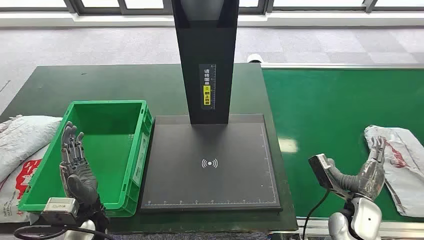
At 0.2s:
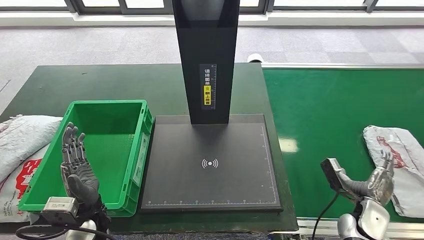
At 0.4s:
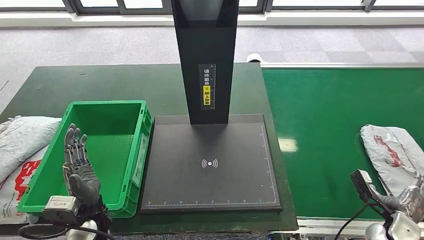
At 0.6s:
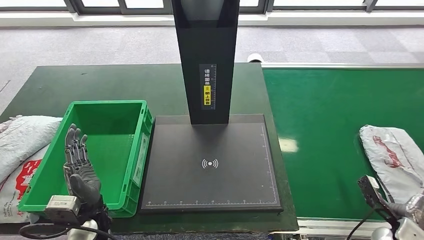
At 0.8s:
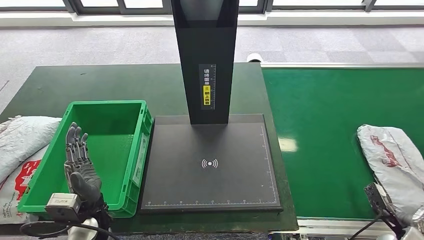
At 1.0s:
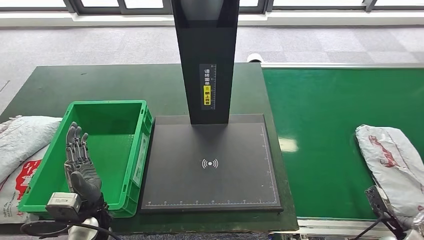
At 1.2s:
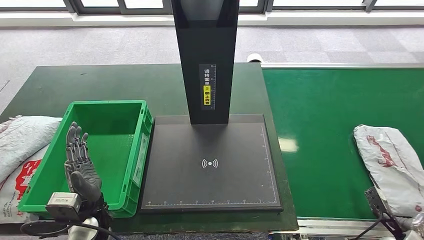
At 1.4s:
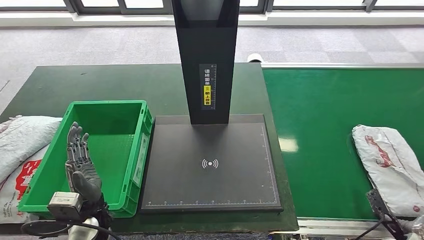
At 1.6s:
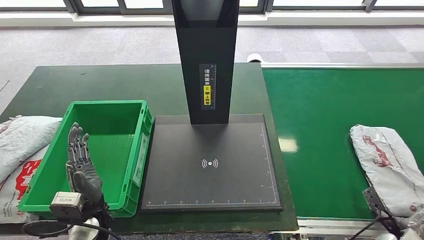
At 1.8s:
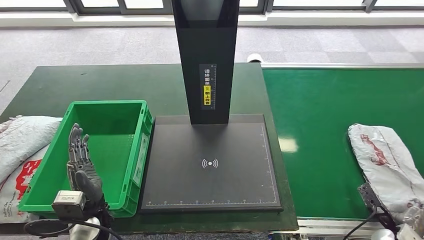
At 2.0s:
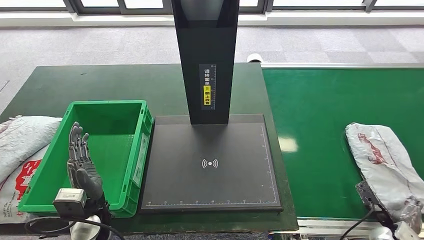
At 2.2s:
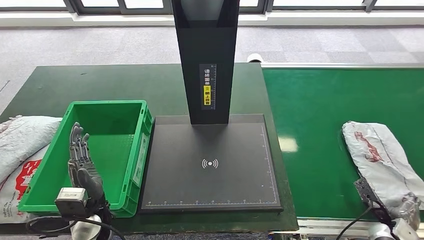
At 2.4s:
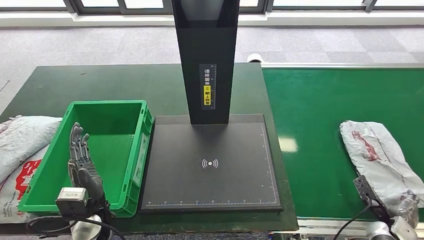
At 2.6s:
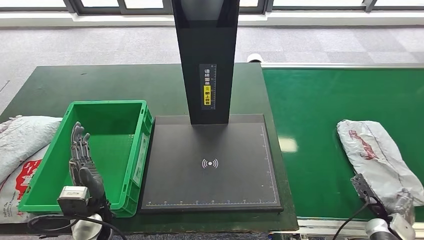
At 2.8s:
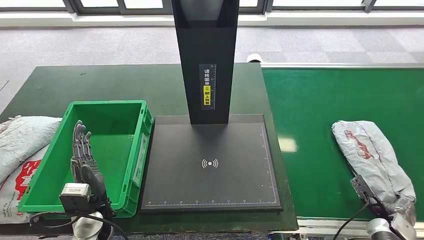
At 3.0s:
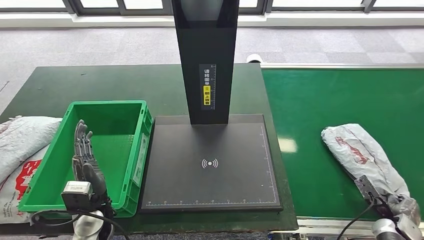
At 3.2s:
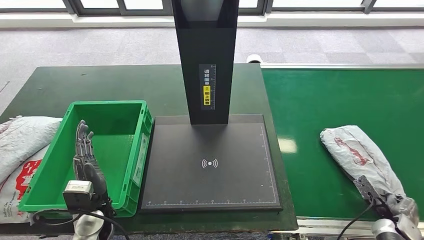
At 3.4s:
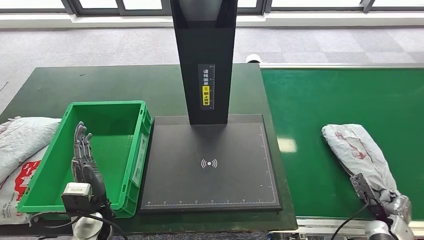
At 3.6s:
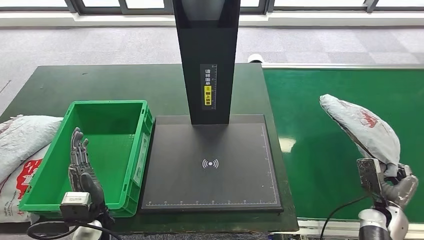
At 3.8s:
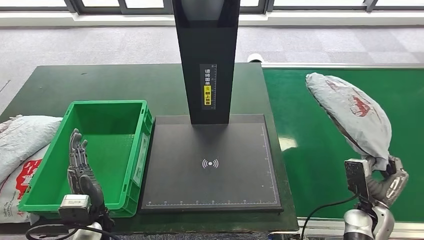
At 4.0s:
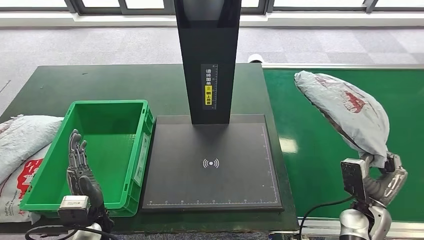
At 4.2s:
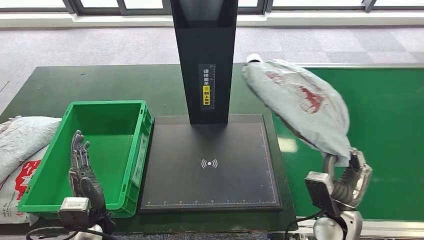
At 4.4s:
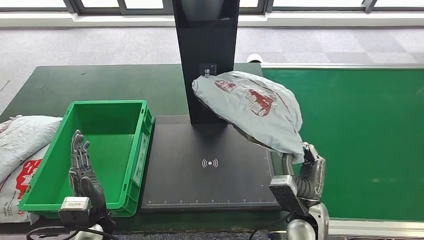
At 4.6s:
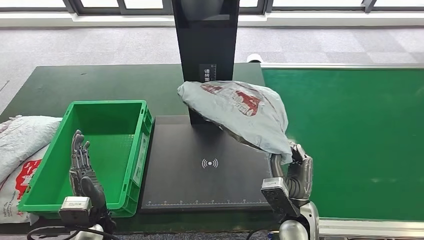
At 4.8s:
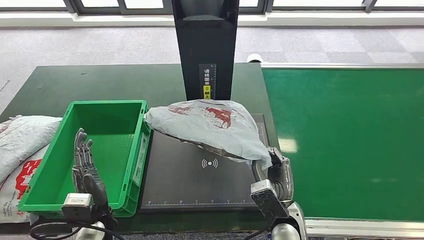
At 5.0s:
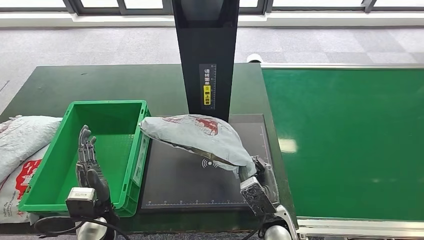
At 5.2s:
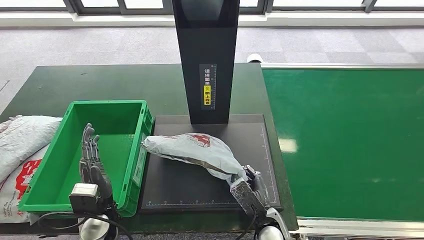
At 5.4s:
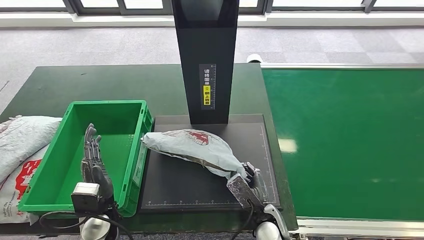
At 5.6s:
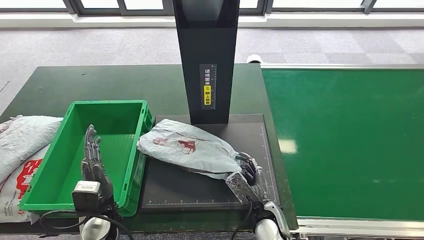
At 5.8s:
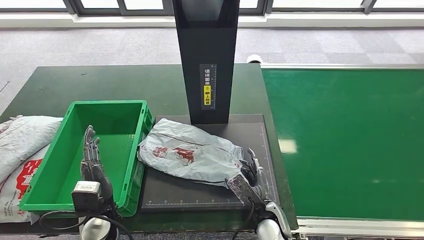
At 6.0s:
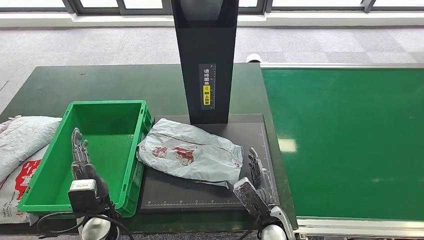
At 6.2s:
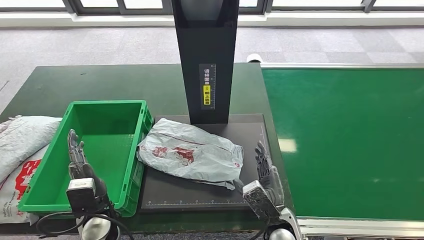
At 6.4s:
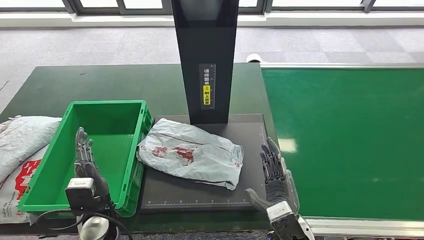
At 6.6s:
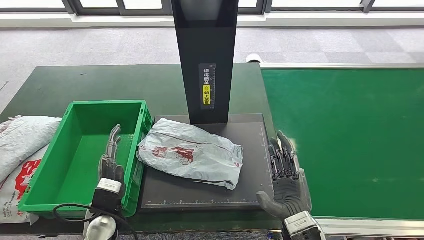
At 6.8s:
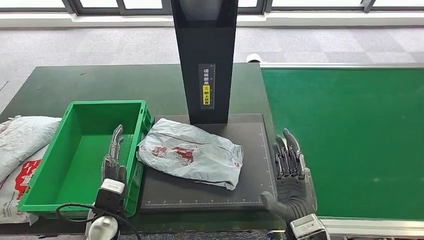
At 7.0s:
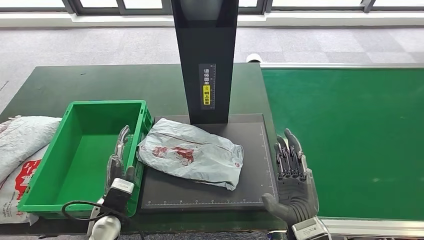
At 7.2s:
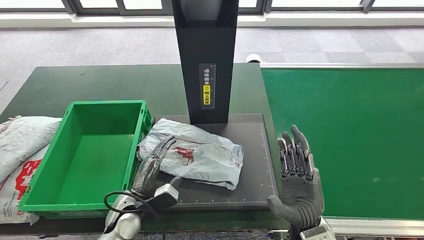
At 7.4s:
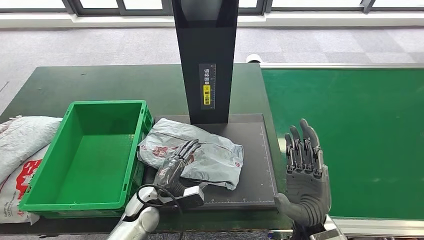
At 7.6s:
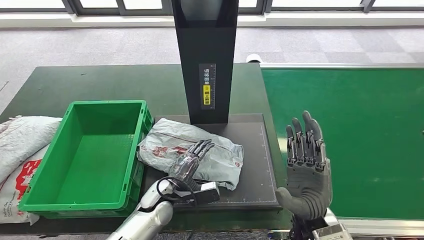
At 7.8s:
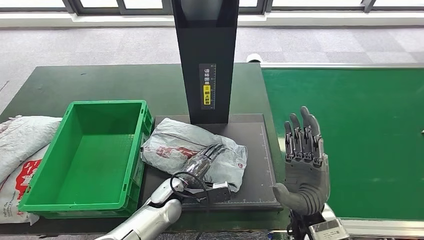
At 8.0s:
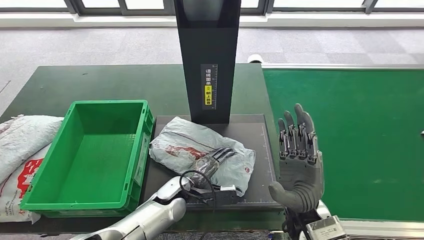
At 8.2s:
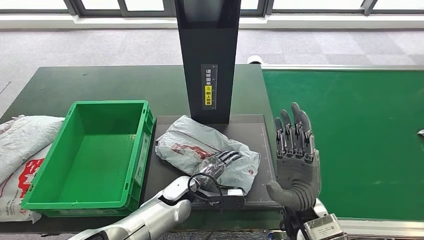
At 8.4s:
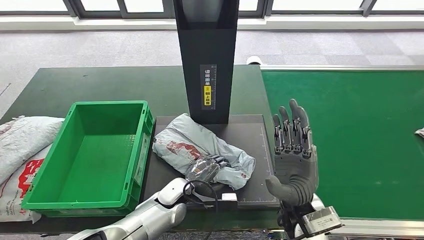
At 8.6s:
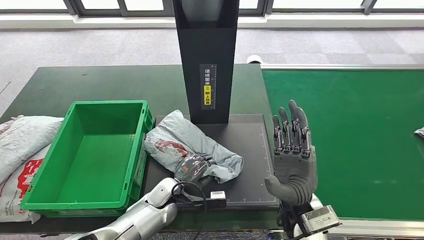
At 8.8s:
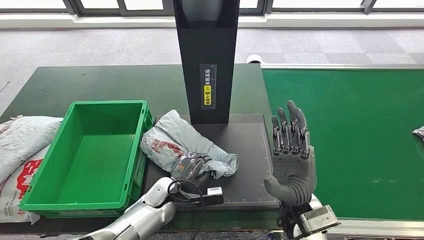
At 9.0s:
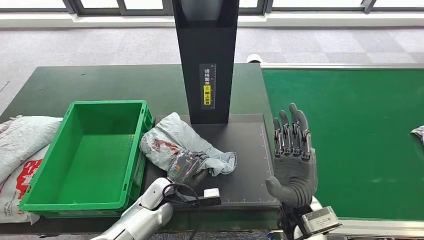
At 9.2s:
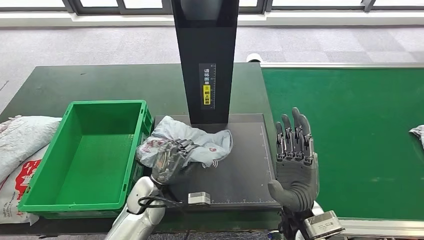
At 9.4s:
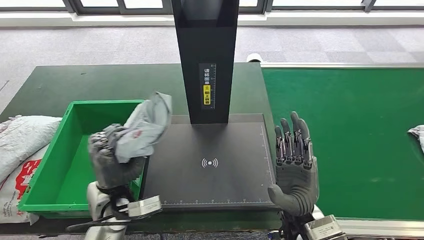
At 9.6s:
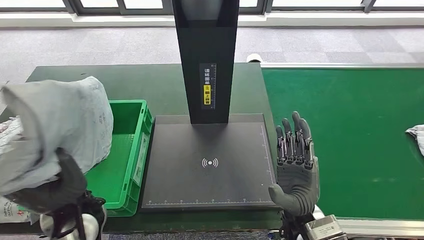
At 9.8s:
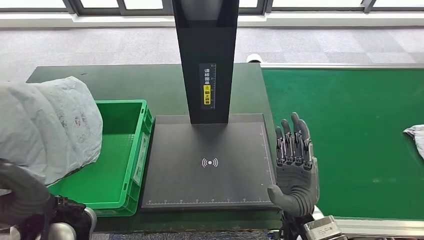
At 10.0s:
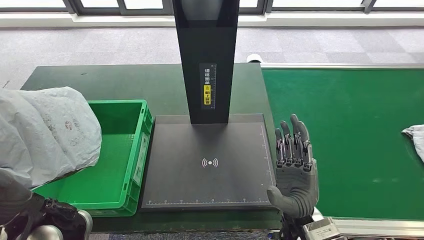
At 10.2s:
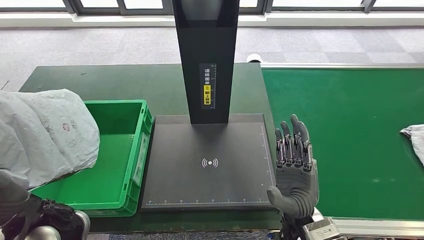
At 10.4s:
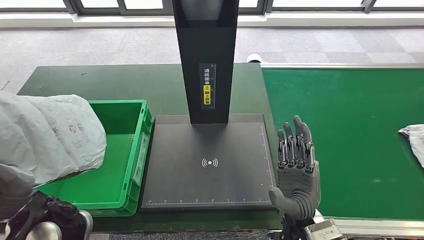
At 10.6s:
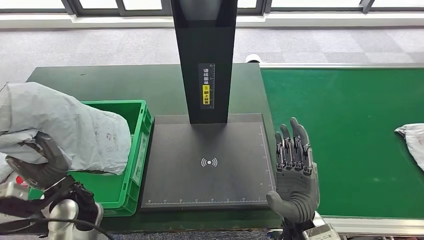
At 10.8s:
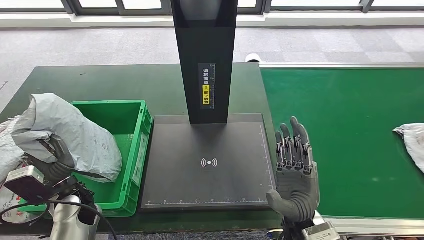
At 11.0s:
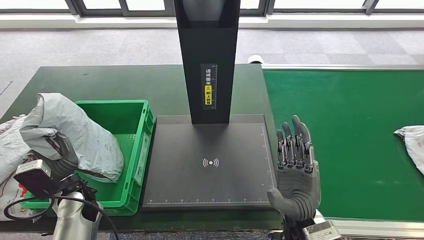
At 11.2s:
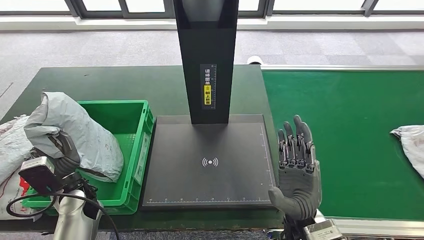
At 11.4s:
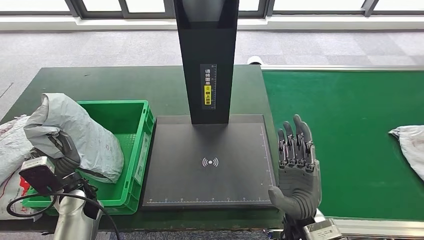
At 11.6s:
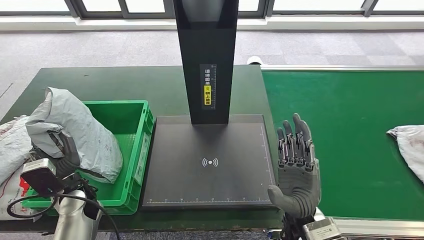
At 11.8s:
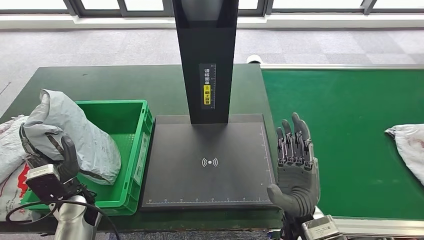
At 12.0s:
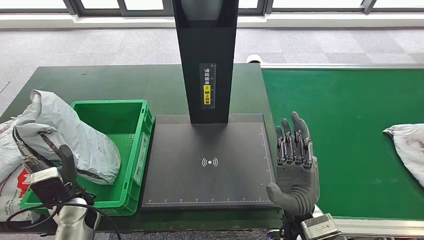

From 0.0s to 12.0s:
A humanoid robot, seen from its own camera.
Step, from 0.0s to 3.4s: Take the parcel off the conveyor belt.
Step, from 3.6s to 6.2s: Place the parcel onto the inbound machine.
Step, from 6.4s to 9.6s: Pick up the parcel from the inbound machine.
From 1.6s to 3.0s: The hands move only a little.
From 3.0s to 4.4s: The right hand shifts about 25 cm to the left and upward.
From 4.4s to 6.0s: The right hand is displaced to the left and downward by some 10 cm.
From 6.0s to 7.6s: The right hand is displaced upward by some 15 cm. Meanwhile the left hand goes roughly 15 cm to the right.
From 10.4s to 12.0s: The left hand travels downward and forward by roughly 15 cm.

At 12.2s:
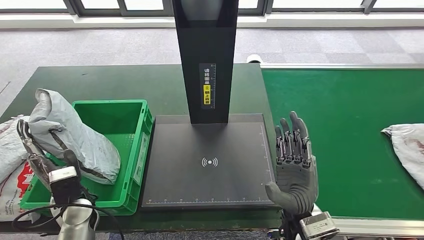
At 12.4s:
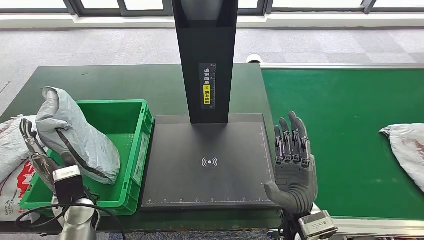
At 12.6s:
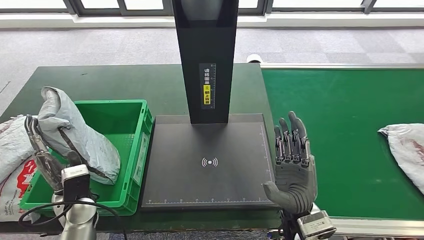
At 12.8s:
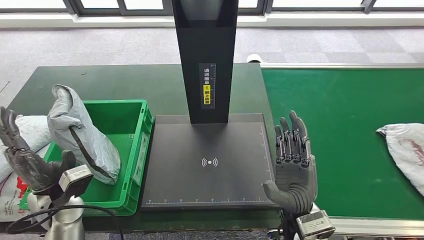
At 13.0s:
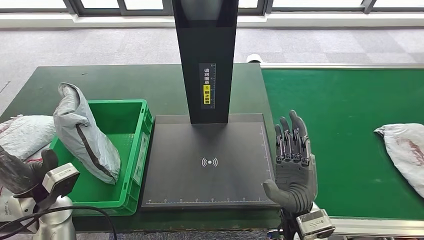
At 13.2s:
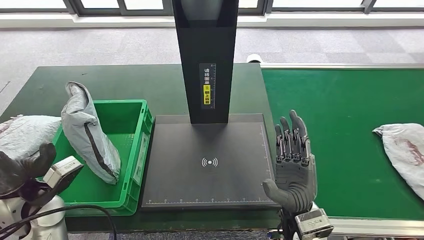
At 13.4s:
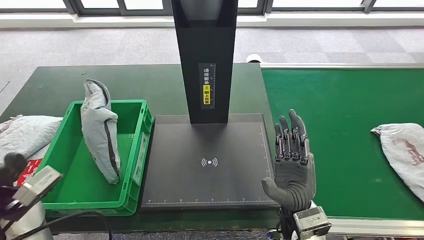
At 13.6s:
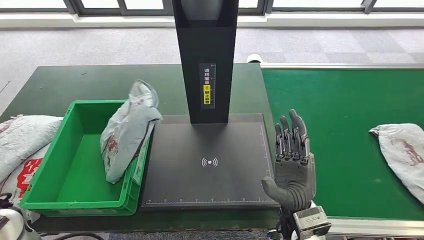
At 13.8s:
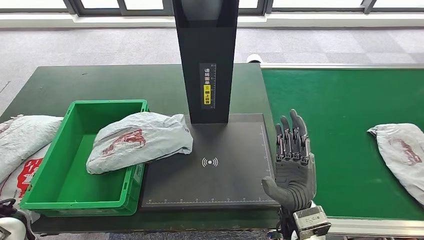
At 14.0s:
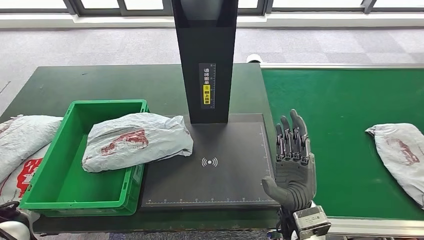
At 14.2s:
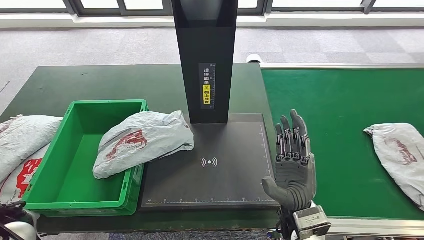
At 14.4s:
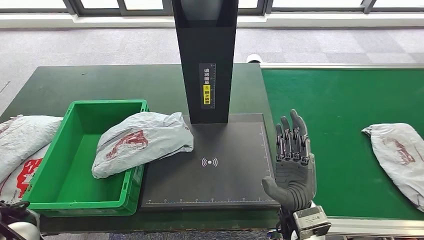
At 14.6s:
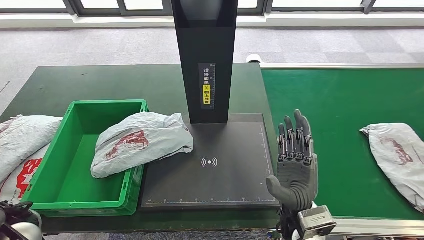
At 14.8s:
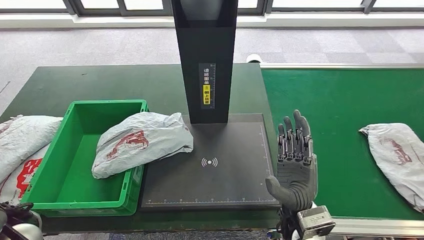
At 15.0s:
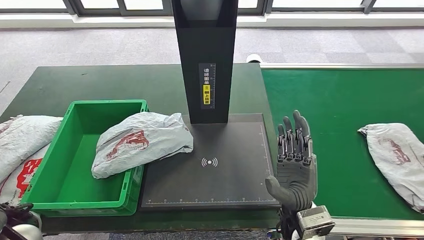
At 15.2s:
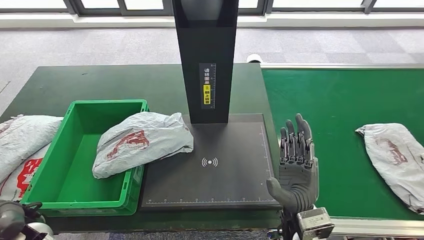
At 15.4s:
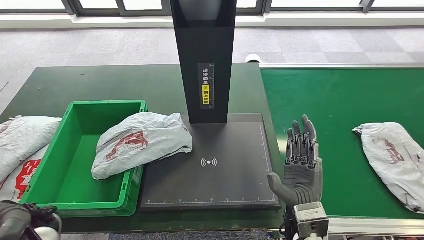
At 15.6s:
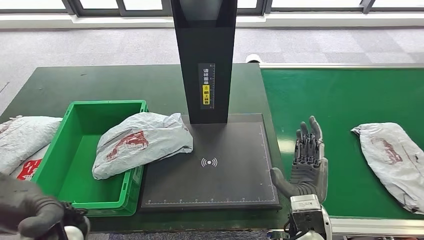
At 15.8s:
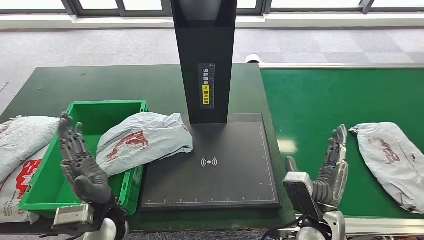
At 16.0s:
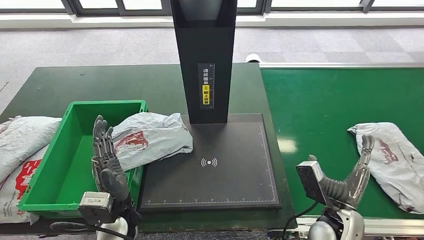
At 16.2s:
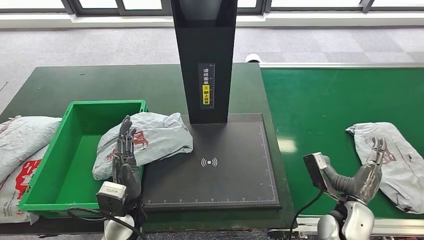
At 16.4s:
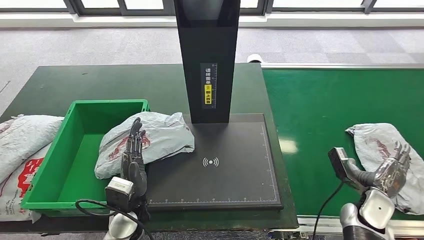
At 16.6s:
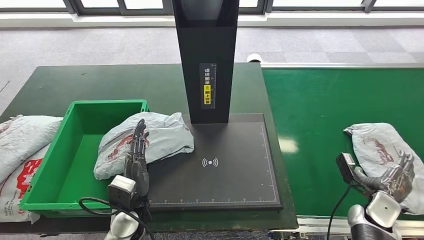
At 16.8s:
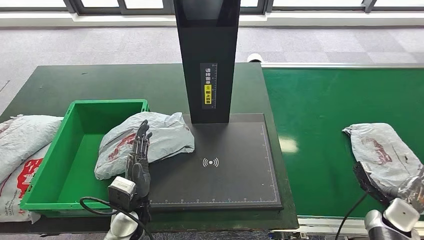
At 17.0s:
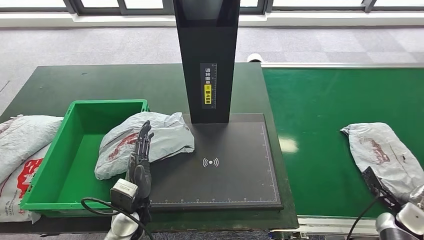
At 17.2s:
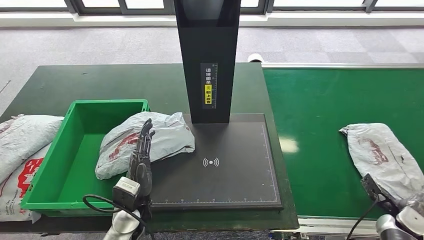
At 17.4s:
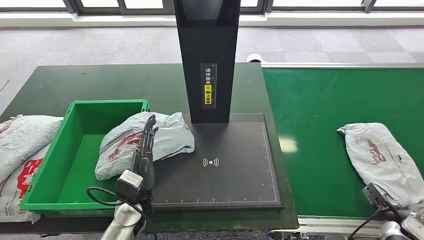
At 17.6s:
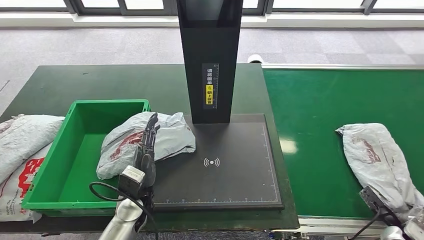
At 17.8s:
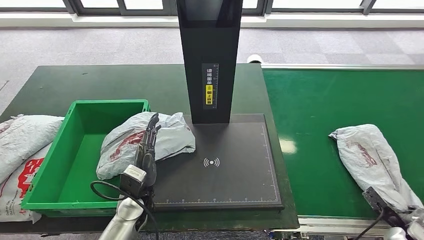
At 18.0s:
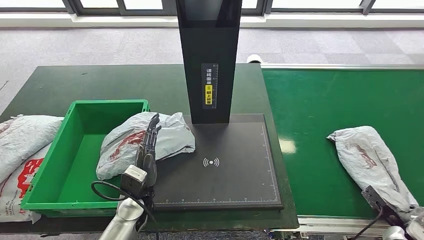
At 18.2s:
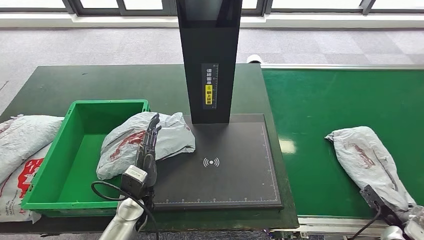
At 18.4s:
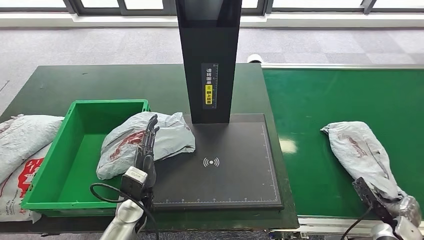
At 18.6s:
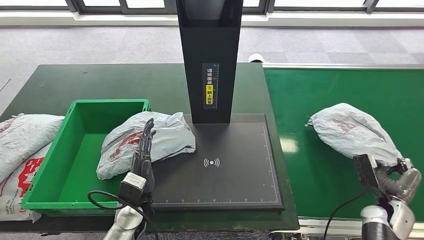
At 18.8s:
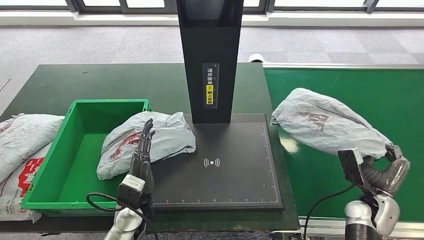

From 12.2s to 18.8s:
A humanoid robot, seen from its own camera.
From 12.2s to 13.8s: The left hand goes approximately 20 cm upward, backward and to the left.
From 13.8s to 15.4s: The left hand travels to the right by some 5 cm.
From 17.2s to 18.8s: The right hand goes some 10 cm to the left.
